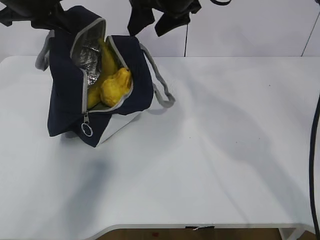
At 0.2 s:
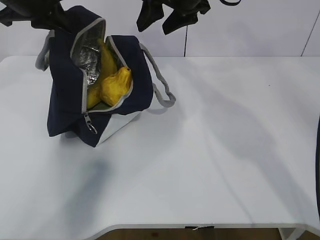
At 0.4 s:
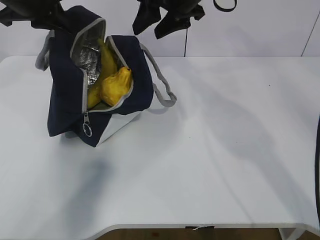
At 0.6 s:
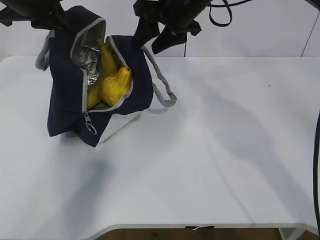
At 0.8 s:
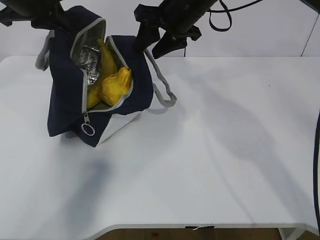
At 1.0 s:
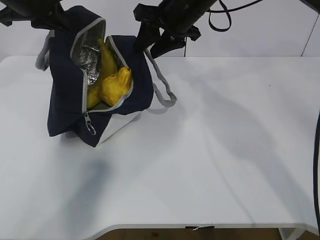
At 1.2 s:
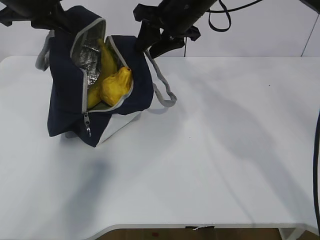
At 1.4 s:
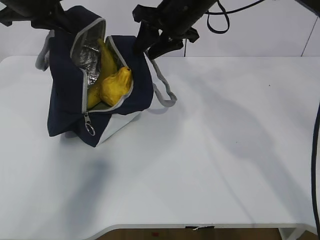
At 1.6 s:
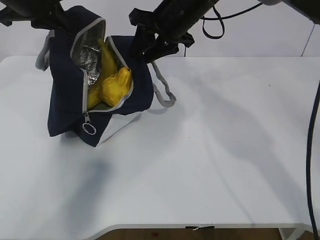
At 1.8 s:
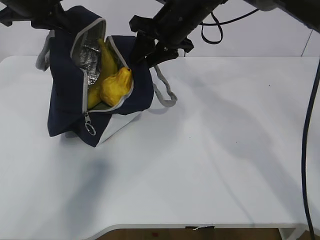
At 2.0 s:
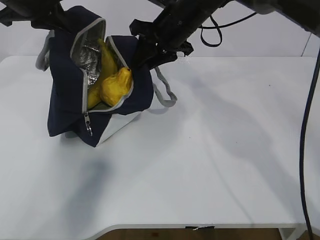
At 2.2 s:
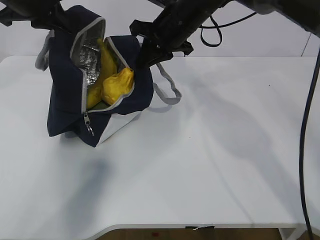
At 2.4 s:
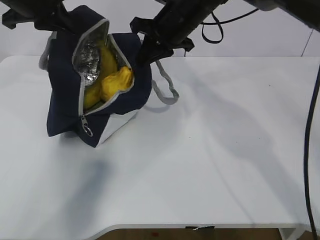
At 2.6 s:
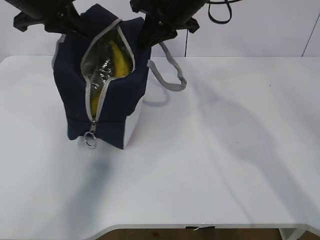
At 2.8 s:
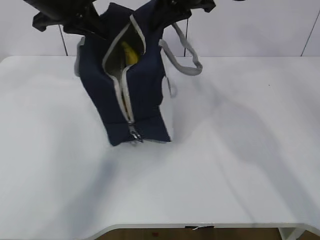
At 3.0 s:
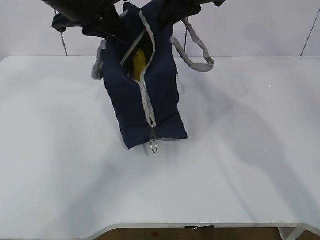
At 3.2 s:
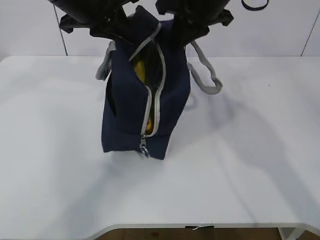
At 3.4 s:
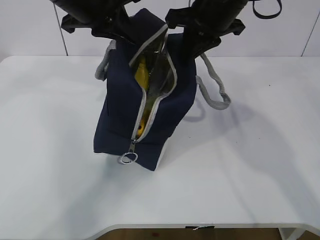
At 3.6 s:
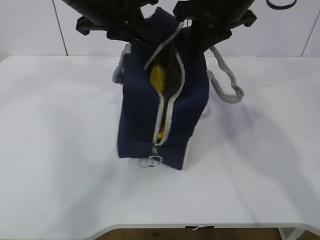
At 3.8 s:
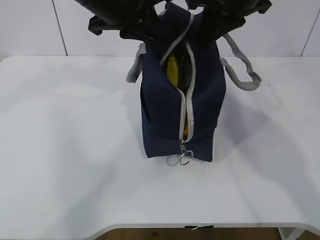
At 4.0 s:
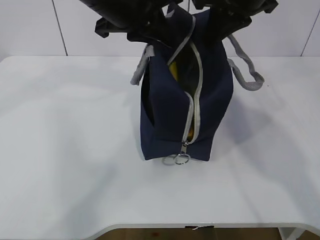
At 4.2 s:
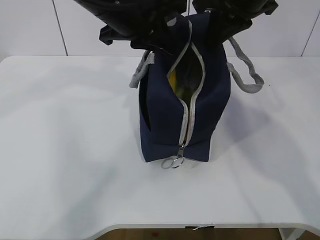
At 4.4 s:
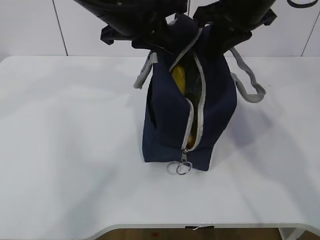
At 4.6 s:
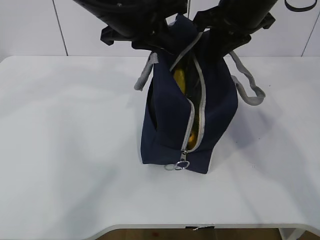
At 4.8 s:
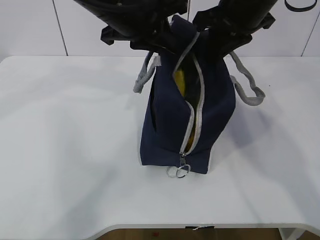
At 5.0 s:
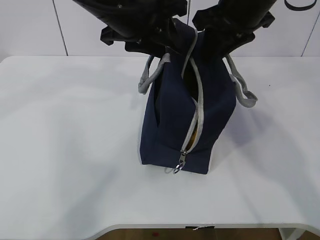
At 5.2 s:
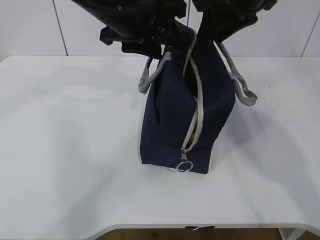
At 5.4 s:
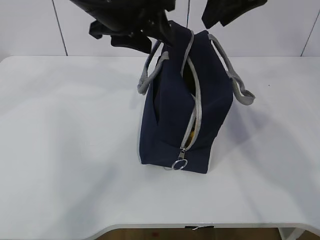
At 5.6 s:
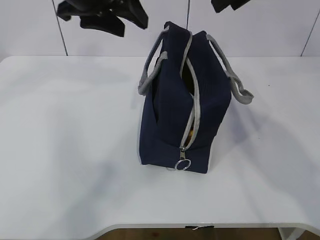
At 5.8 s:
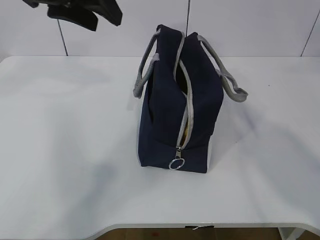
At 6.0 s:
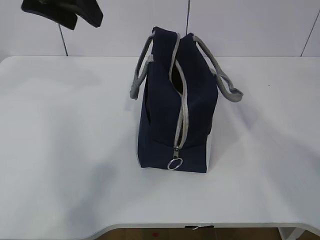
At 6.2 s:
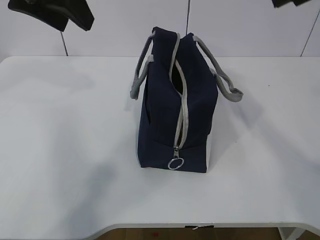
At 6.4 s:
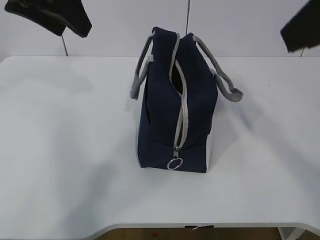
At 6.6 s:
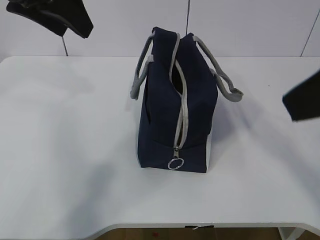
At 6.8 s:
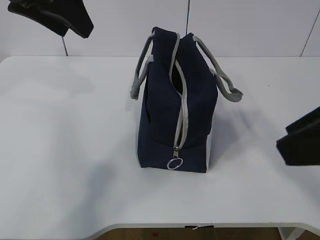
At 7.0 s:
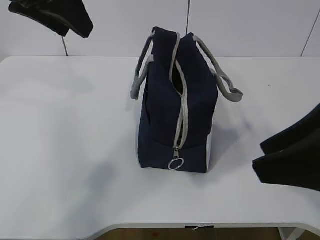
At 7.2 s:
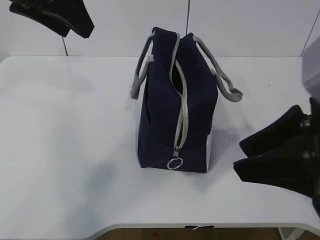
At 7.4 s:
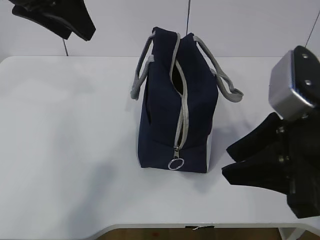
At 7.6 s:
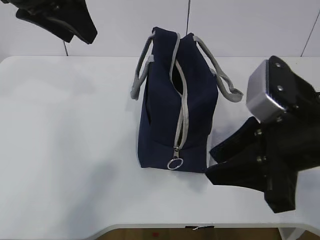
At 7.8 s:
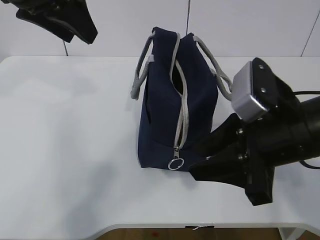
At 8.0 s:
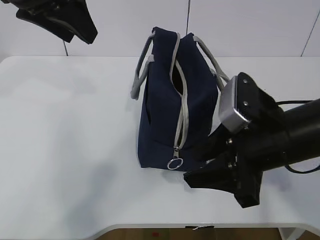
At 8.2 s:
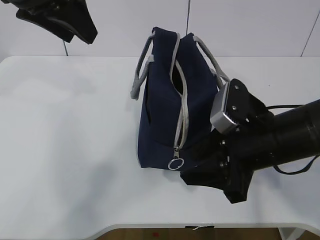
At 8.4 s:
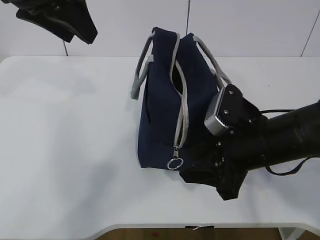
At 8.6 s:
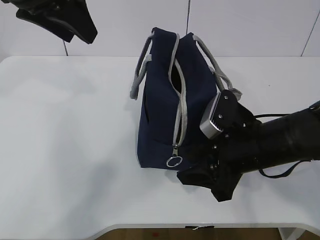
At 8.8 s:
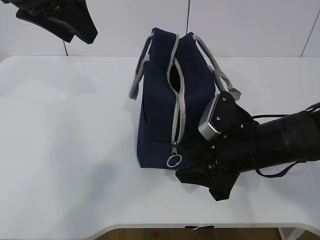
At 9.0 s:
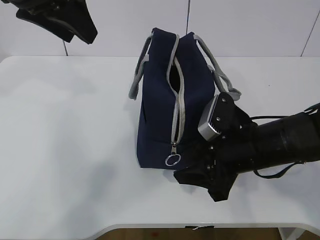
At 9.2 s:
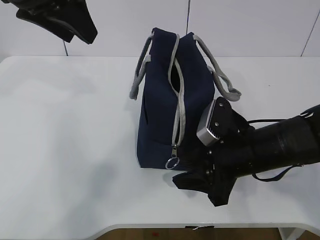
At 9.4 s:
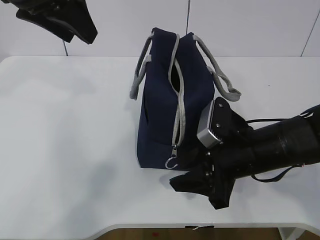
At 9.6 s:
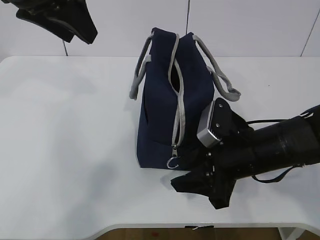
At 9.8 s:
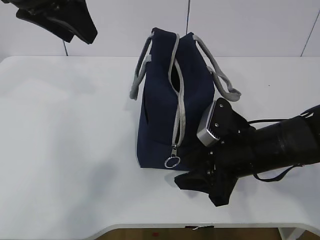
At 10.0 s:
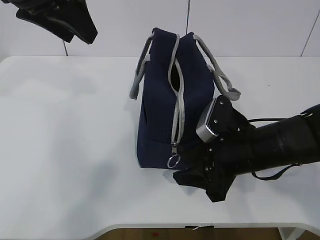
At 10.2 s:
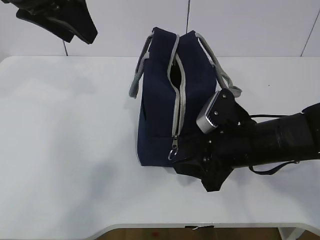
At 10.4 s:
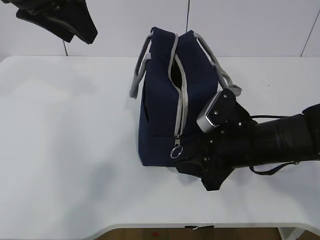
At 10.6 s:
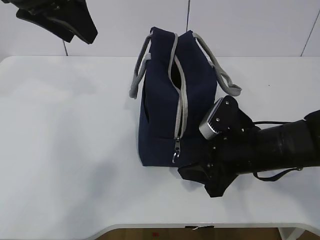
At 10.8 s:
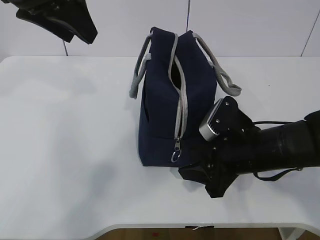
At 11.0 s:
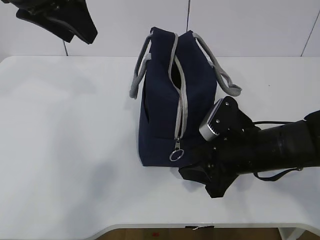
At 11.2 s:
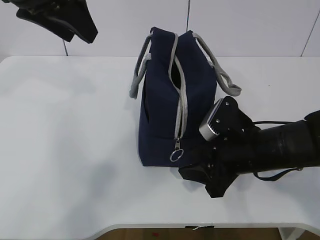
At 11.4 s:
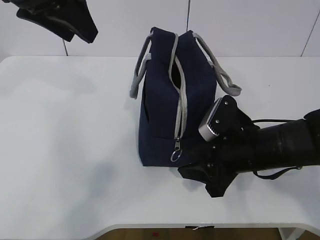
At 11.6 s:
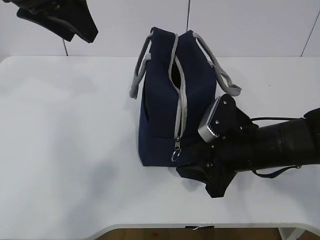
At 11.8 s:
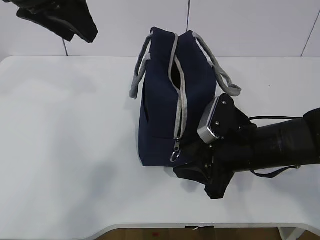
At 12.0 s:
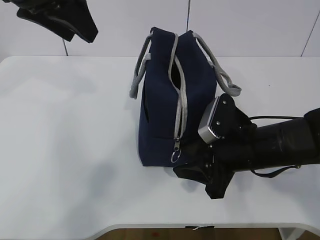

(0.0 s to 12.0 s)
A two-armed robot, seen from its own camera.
0.0 s - 1.6 s: The right gripper closes.
1.6 s - 3.0 s: The right gripper goes approximately 5 cm upward, and closes. The left gripper moves to the right, roughly 10 cm.
3.0 s - 4.4 s: The right gripper changes place by about 5 cm. Meanwhile the left gripper travels to the right by some 5 cm.
4.4 s - 6.0 s: The right gripper shifts approximately 15 cm upward and backward, and opens its fingers. The left gripper heads to the left and upward, covering roughly 10 cm, and opens up.
6.0 s - 7.6 s: The right gripper goes roughly 20 cm downward and backward.
7.6 s - 9.0 s: The right gripper travels downward and forward by some 10 cm.
9.0 s - 12.0 s: The grippers make only small movements.

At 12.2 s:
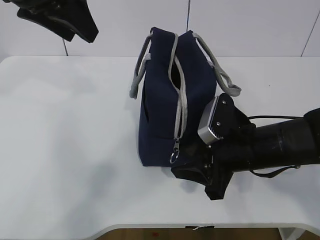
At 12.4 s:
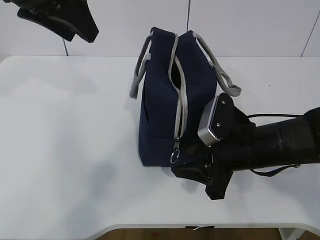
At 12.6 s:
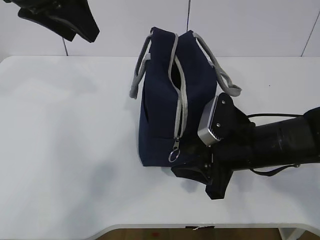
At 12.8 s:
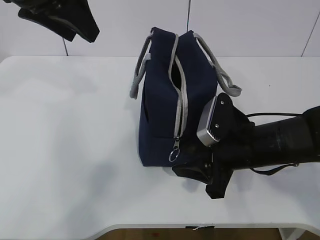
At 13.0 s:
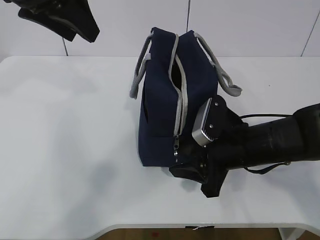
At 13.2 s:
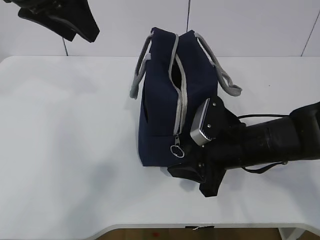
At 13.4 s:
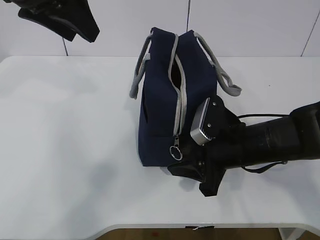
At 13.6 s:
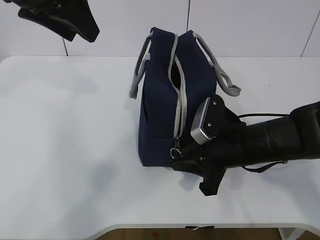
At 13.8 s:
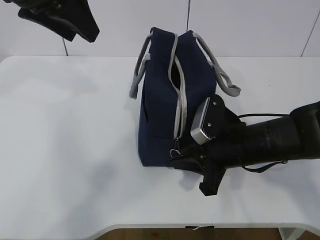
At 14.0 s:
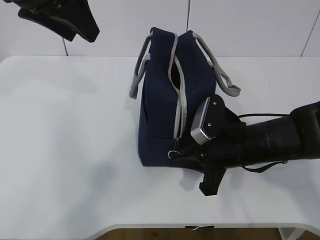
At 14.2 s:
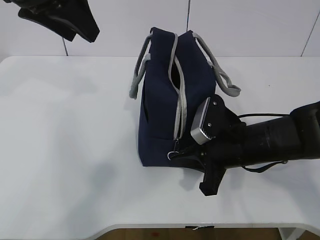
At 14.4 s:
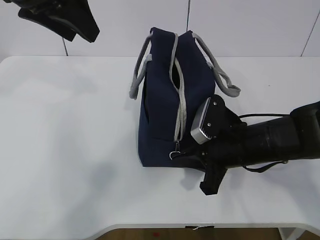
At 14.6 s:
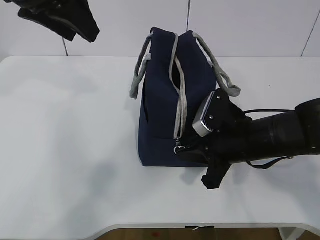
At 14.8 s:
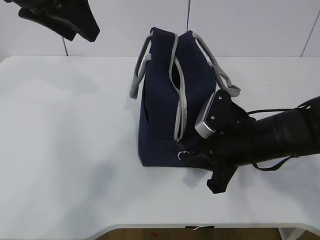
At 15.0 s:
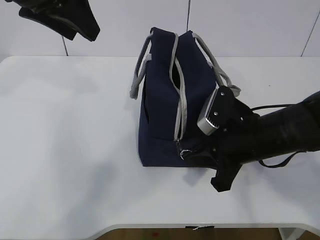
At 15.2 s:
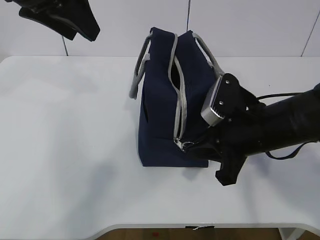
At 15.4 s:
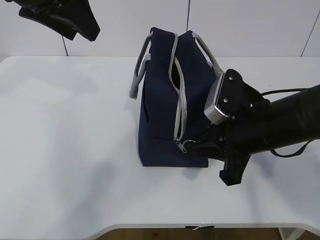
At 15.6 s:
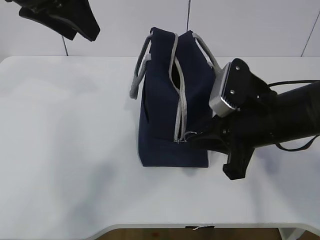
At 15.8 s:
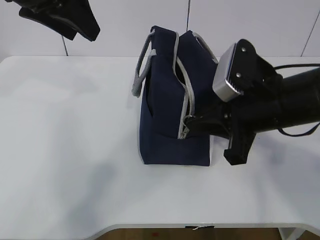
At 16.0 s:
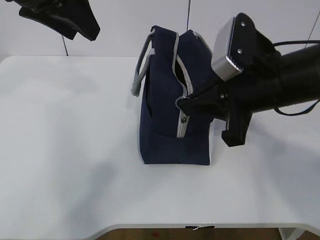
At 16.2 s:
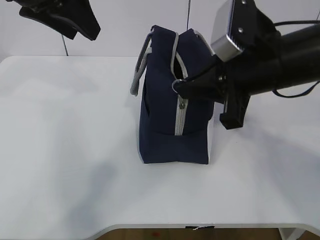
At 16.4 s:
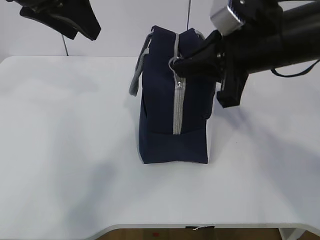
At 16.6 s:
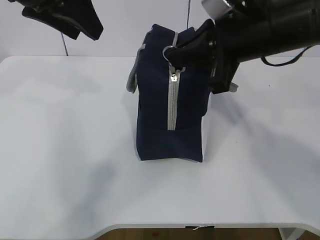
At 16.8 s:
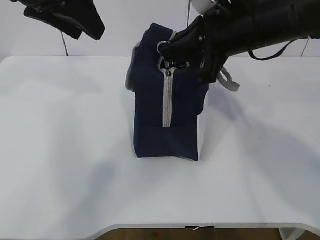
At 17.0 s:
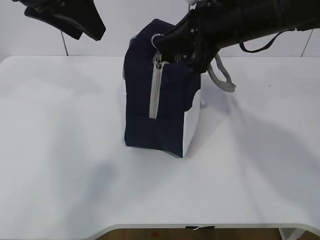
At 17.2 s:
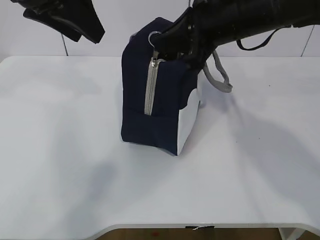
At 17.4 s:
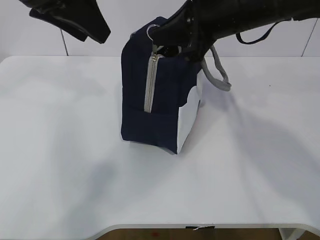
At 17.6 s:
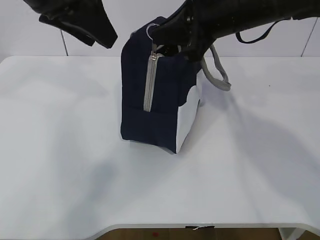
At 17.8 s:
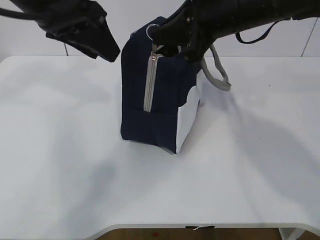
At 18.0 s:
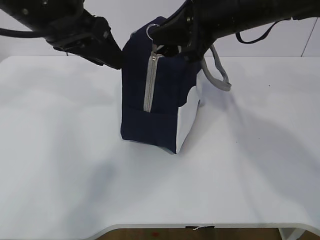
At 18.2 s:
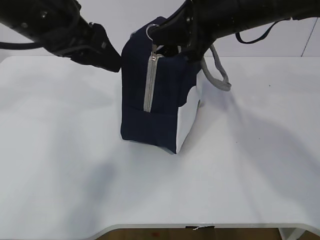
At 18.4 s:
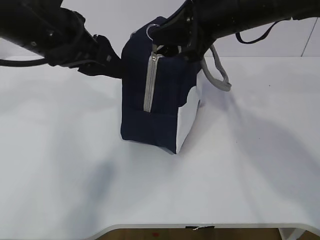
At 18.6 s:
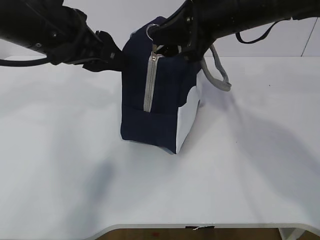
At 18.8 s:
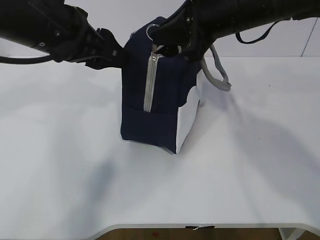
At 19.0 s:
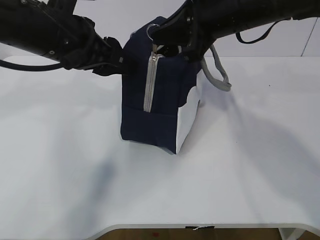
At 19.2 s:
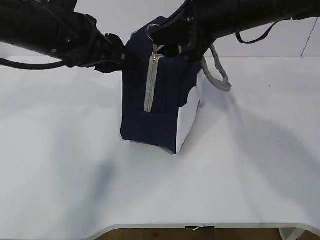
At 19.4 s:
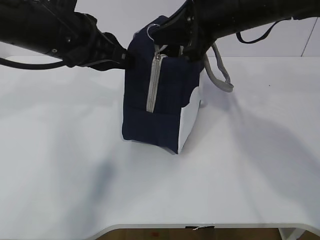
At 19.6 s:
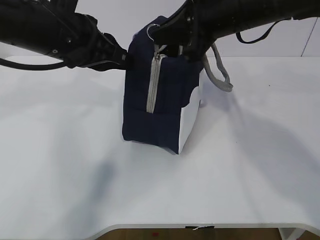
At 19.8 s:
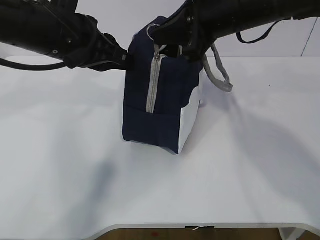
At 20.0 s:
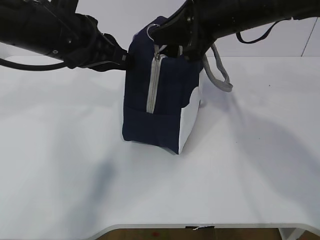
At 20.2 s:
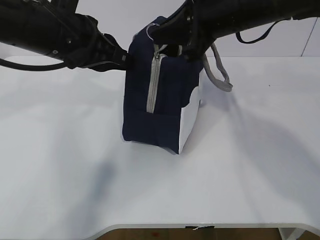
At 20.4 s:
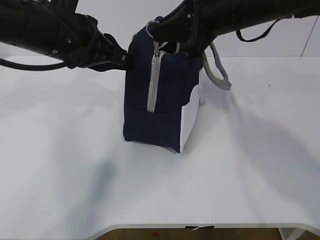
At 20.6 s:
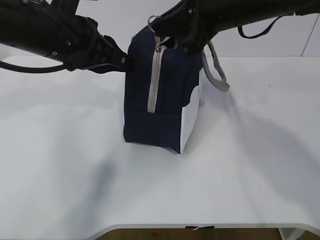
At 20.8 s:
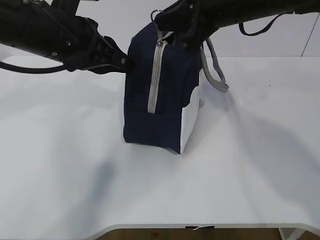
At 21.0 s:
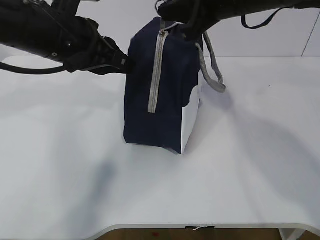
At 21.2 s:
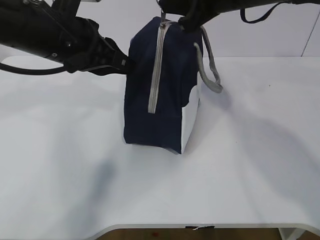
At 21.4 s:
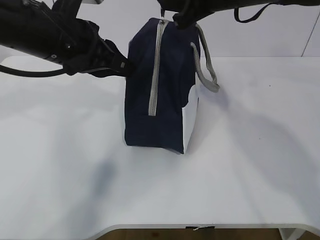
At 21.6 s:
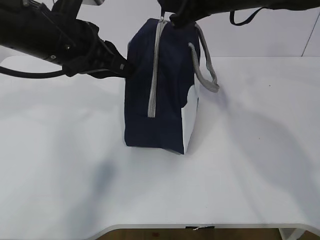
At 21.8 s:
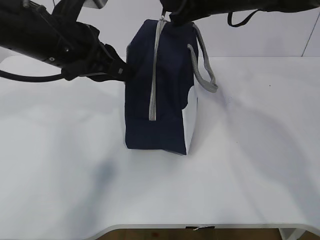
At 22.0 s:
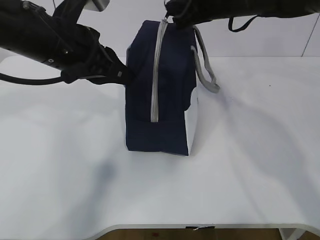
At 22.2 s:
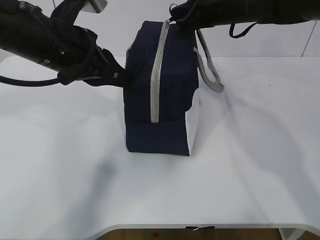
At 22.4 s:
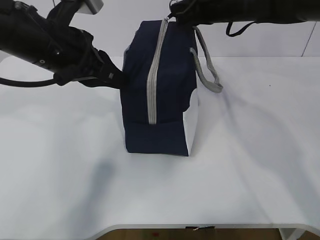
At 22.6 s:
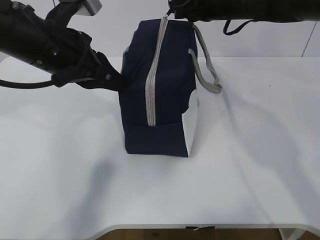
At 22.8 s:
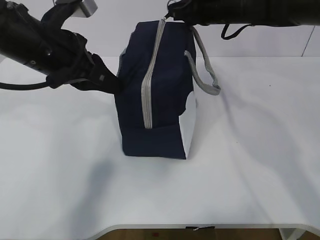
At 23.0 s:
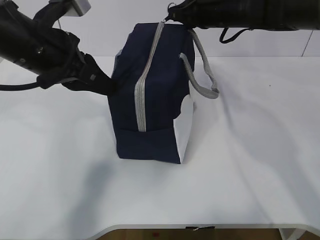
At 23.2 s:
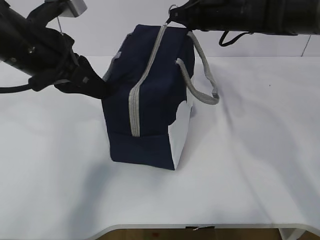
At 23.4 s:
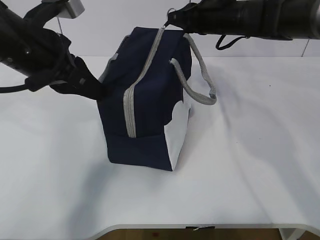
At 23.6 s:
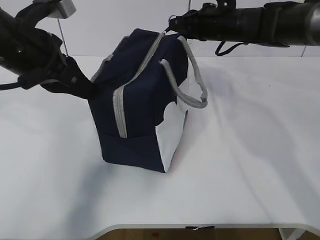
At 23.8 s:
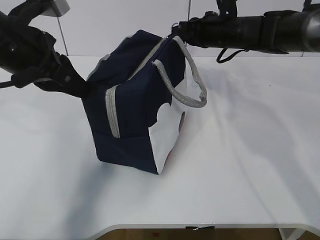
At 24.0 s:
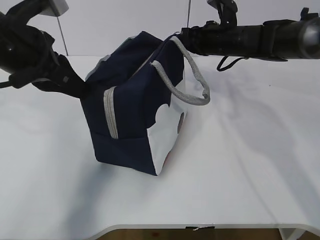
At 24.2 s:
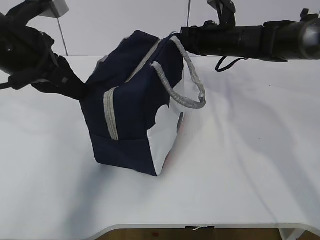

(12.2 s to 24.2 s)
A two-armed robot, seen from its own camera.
12.2 s - 13.8 s: The right gripper closes.
13.8 s - 15.2 s: The right gripper moves roughly 5 cm.
15.2 s - 16.6 s: The right gripper shifts approximately 15 cm upward.
16.6 s - 18.2 s: The left gripper is displaced downward by about 5 cm. Meanwhile the right gripper travels forward by some 5 cm.
18.2 s - 19.8 s: The left gripper closes.
19.8 s - 21.2 s: The grippers stay close to where they were, moving slightly.
21.2 s - 22.6 s: The right gripper is displaced forward by roughly 10 cm.
22.6 s - 24.2 s: The right gripper heads downward, covering approximately 10 cm.
